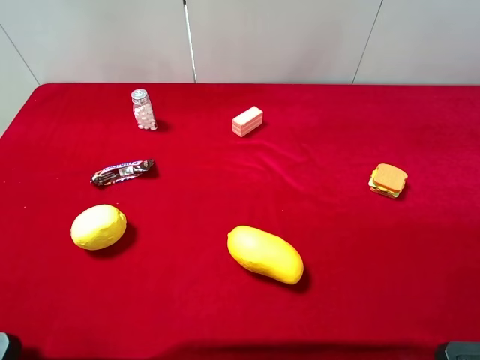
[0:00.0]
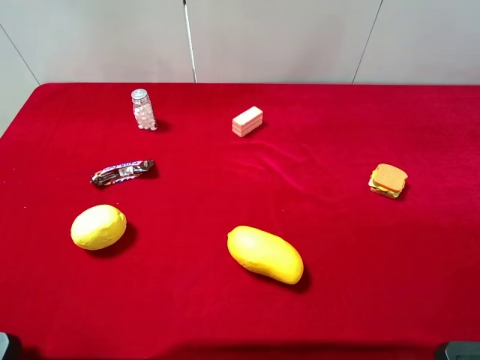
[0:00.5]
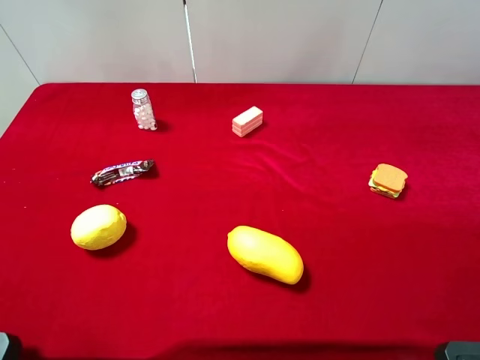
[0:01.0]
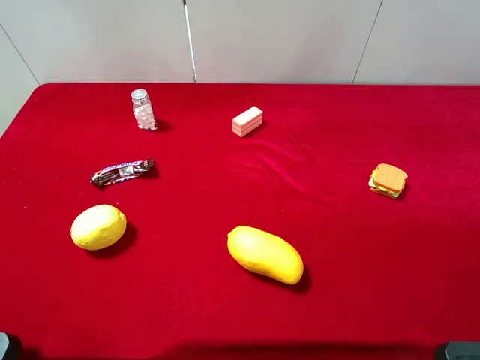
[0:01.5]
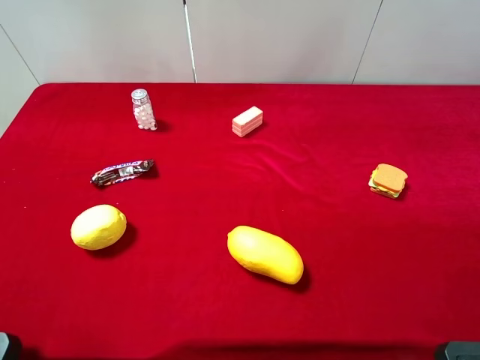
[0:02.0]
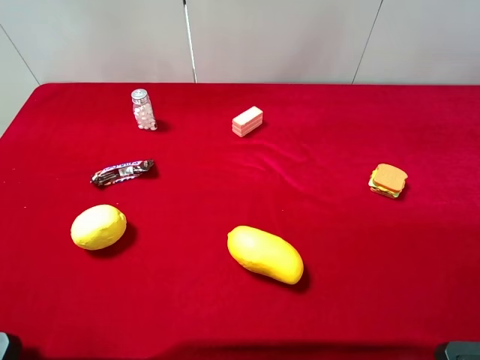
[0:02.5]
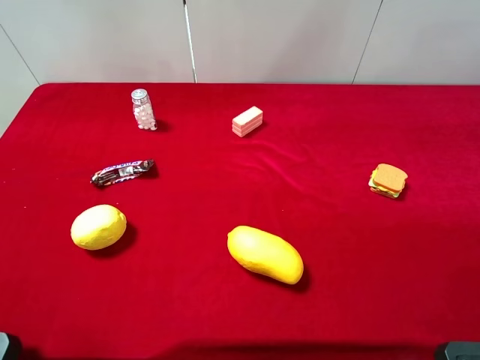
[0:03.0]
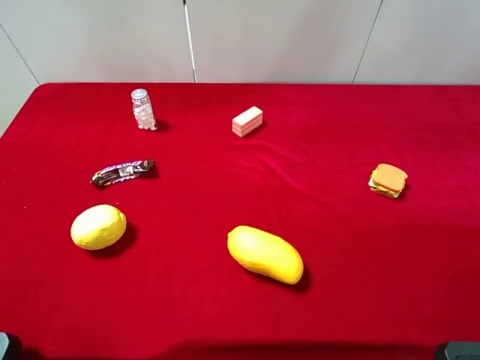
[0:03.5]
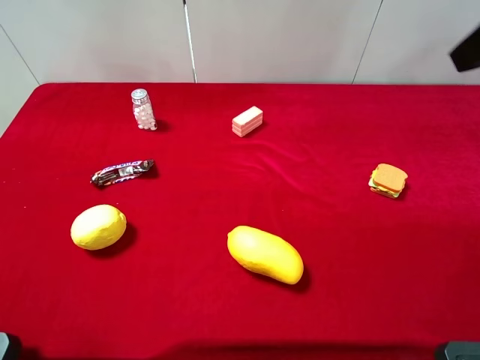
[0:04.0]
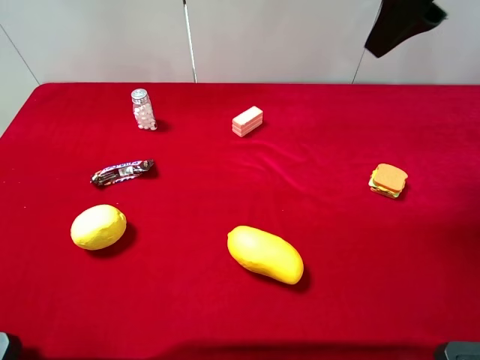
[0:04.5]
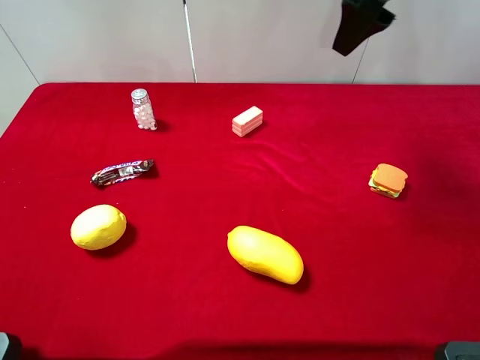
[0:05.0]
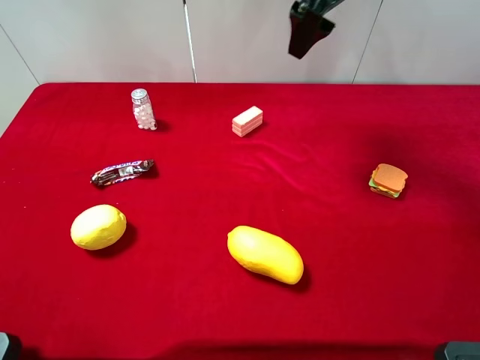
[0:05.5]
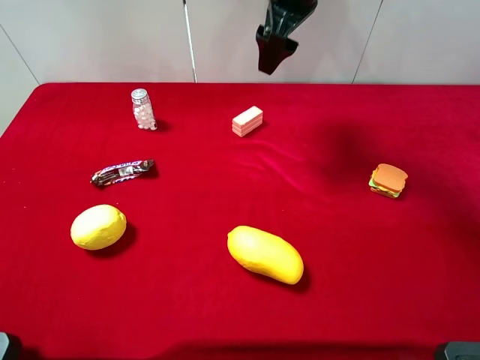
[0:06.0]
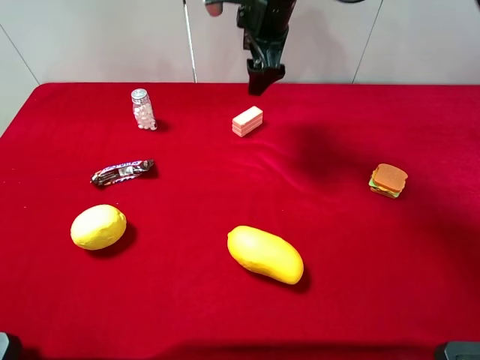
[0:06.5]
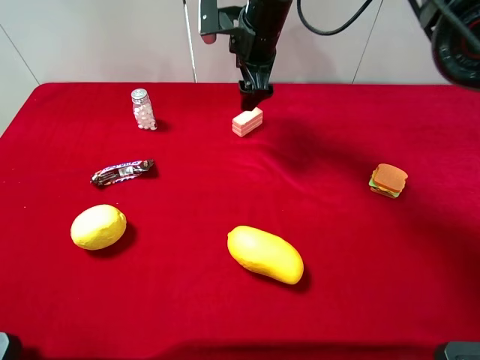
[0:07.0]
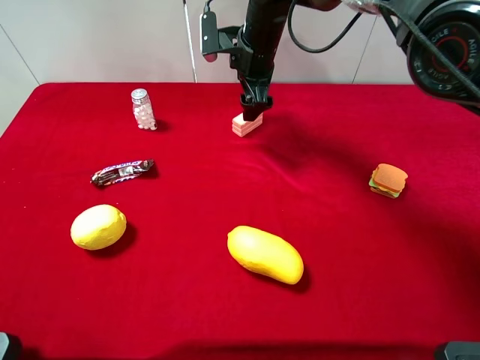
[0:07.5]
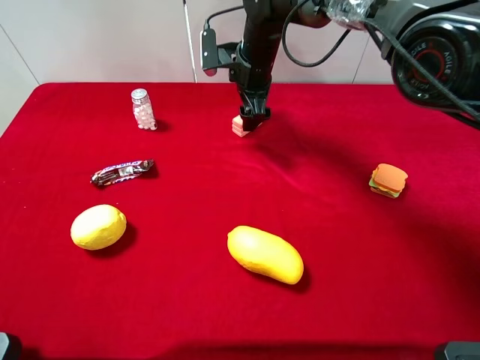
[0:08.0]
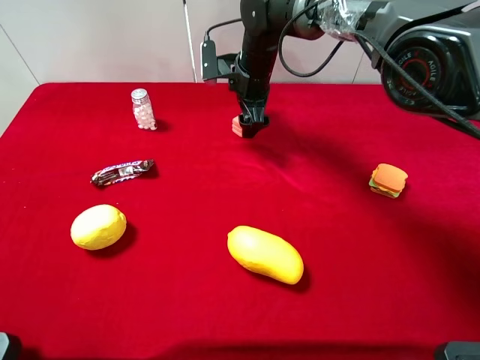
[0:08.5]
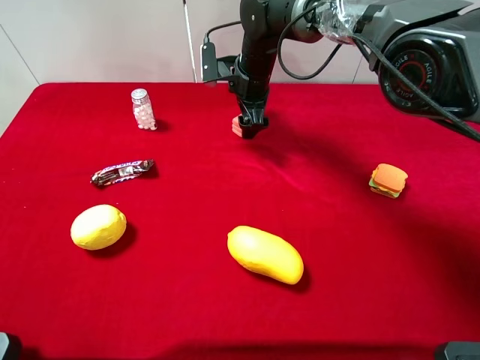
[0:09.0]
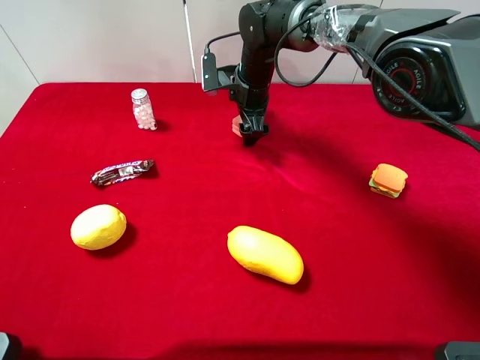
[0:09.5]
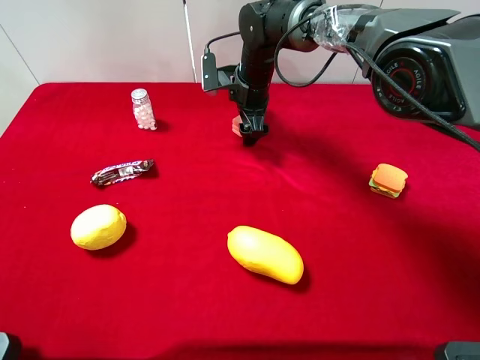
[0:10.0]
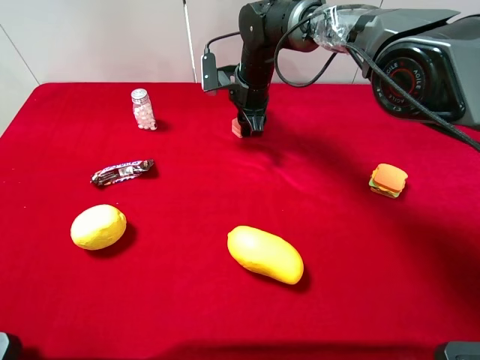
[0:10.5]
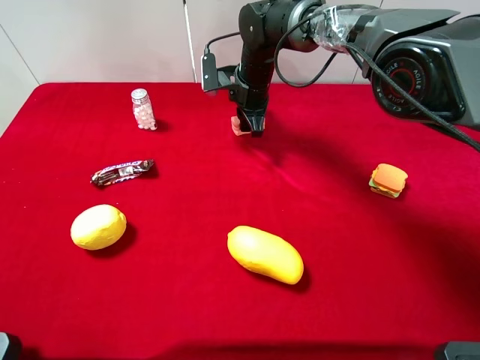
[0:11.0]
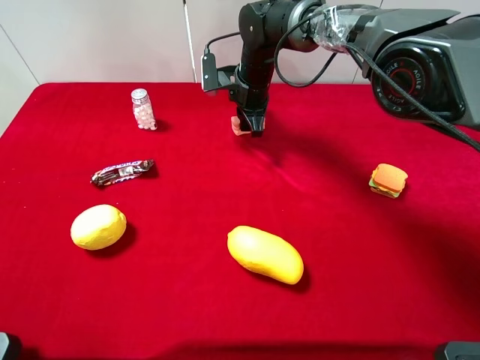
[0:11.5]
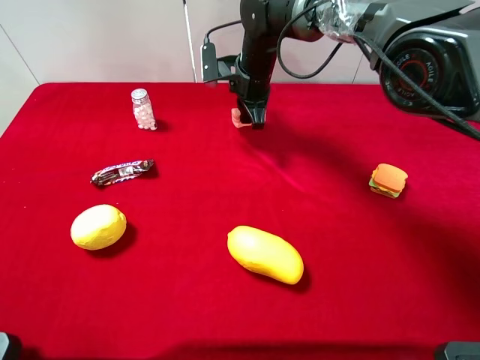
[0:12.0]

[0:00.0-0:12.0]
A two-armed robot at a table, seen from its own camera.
Task of the whole recording: the gripper move the object.
Step, 0.0 to 10.5 s: Grasp the pink cake with the right gripper.
0.0 to 2.0 s: The two grippers keep their place.
4.0 to 6.0 s: The right gripper travels forward, to the left and downward by about 30 cm.
6.0 to 8.0 s: The right gripper moves downward, some 15 cm.
8.0 to 10.0 s: There are only small adjustments of the grippers.
10.0 to 12.0 s: The right gripper closes.

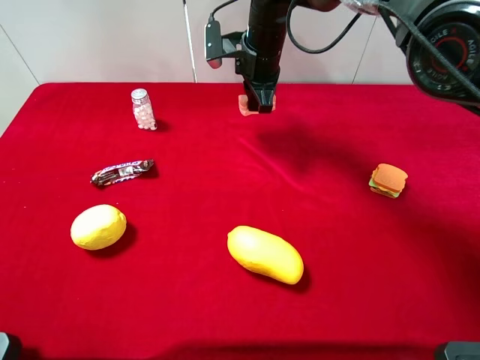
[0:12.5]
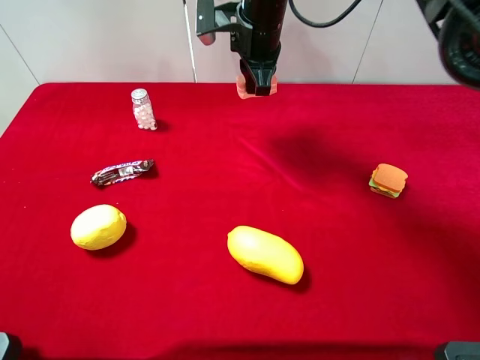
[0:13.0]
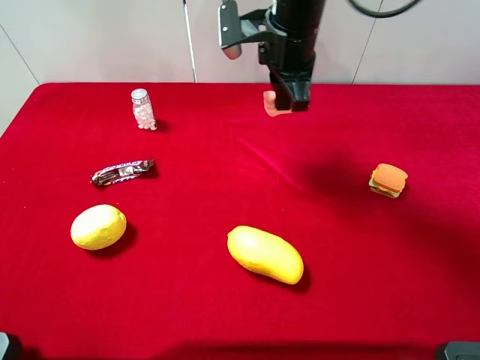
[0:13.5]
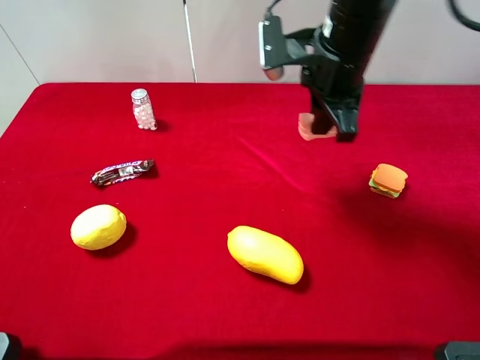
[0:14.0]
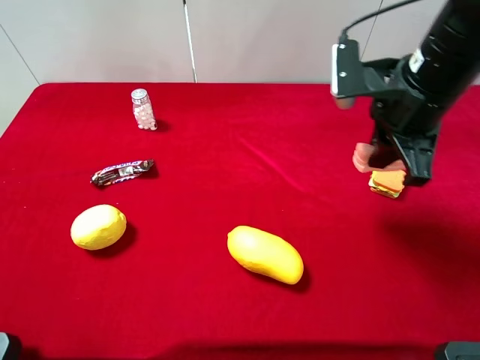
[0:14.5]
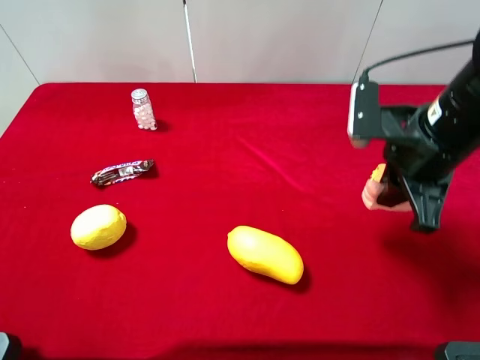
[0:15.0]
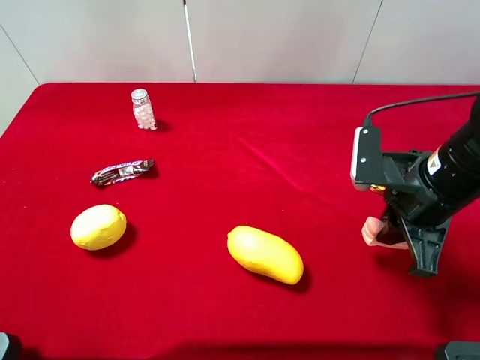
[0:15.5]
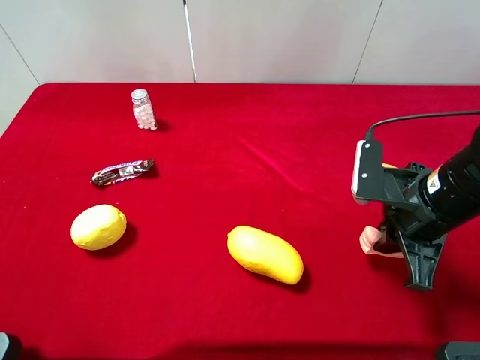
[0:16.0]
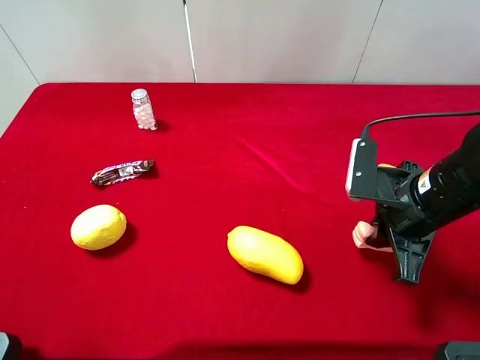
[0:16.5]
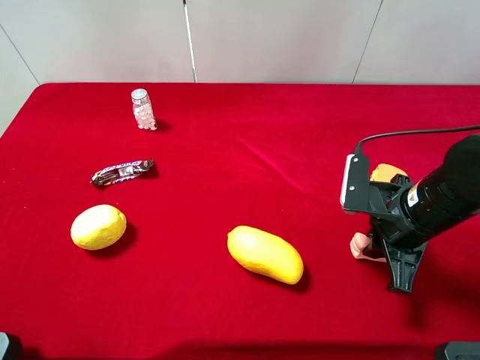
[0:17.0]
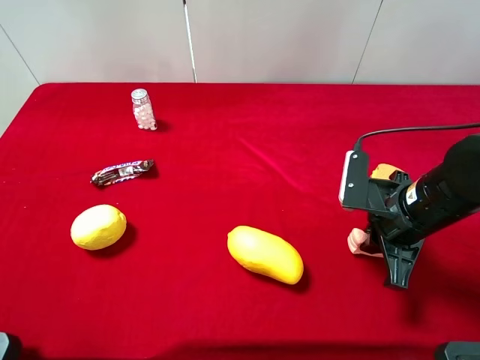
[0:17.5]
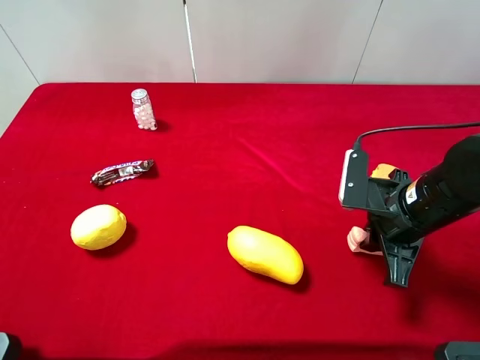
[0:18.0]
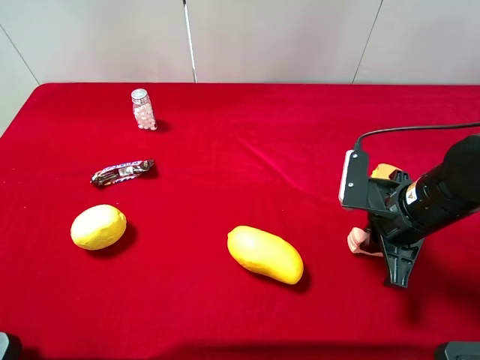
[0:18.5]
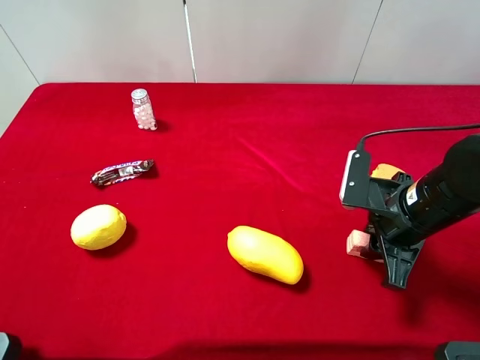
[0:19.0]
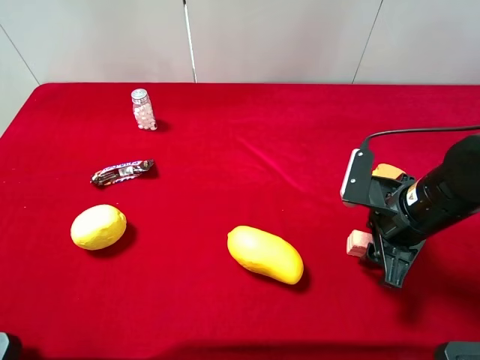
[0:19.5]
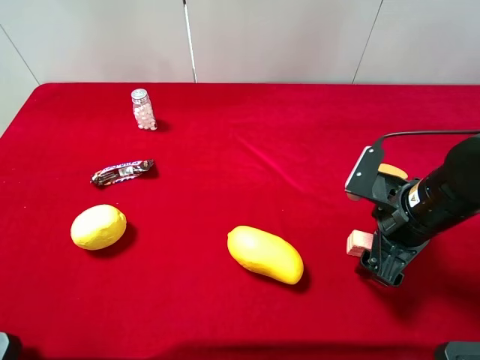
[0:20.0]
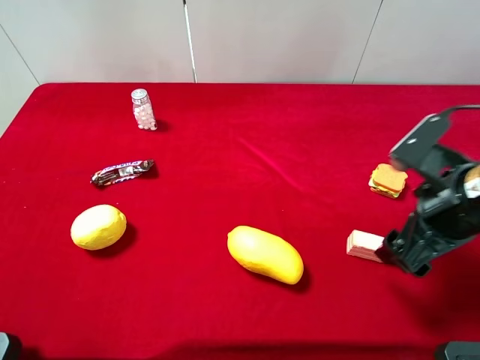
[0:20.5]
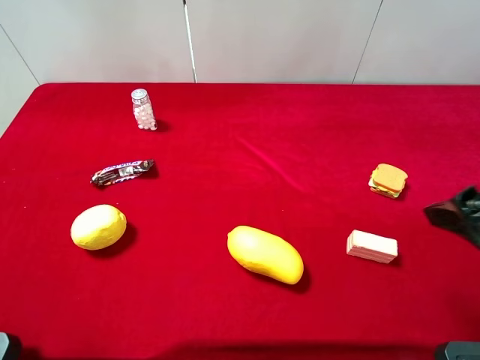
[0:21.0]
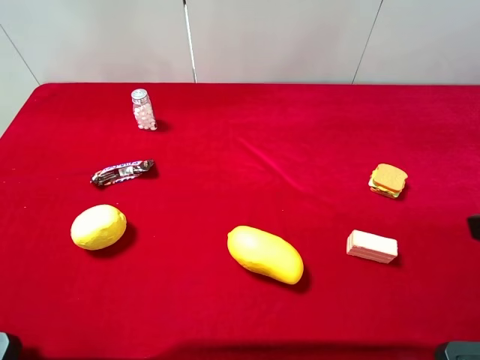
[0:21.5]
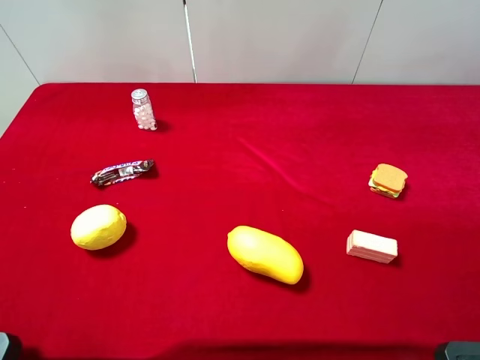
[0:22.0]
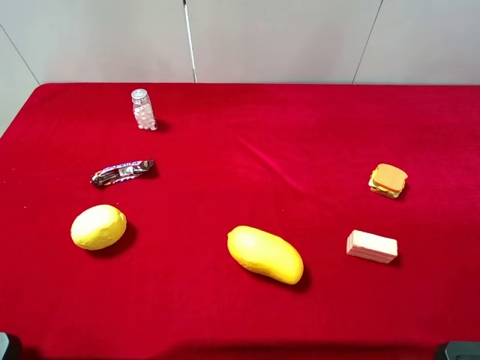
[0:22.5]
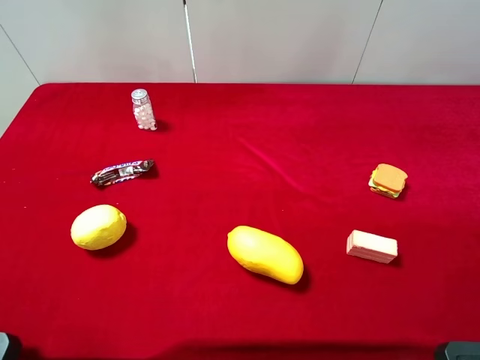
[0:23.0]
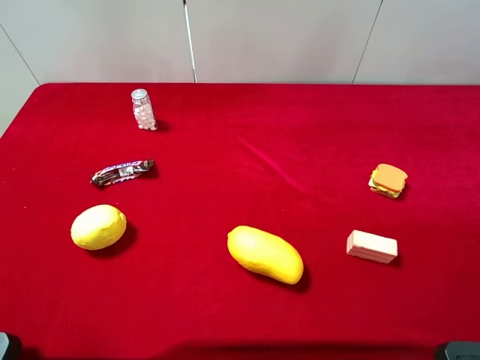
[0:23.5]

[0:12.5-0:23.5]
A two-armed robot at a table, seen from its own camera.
Task of the whole recording: the gripper move the object.
Step, 12.5 to 20.5 s: Place the pink cake on the table with the right gripper.
12.5 to 14.5 s: The right gripper heads backward and to the right, covering about 25 cm.
14.5 to 16.0 s: The right gripper travels downward and backward by approximately 10 cm.
16.0 to 18.0 s: The grippers move only a little.
18.0 to 20.0 s: The right gripper opens up.
20.0 to 21.5 s: The right gripper moves upward and backward, some 20 cm.

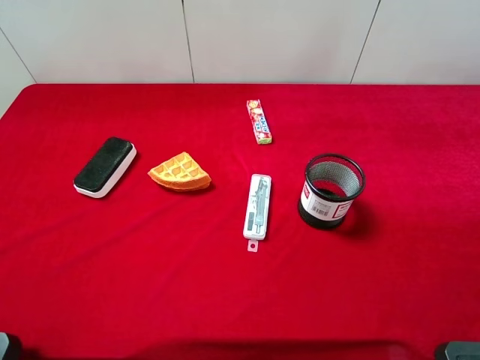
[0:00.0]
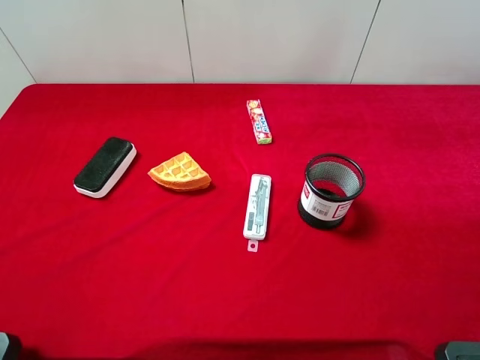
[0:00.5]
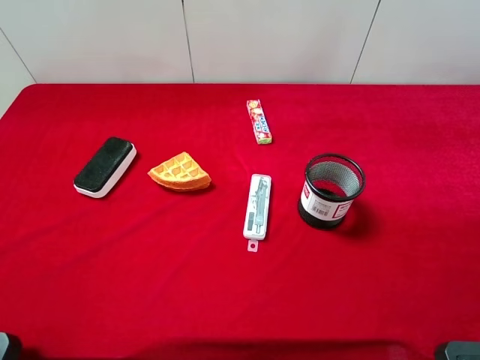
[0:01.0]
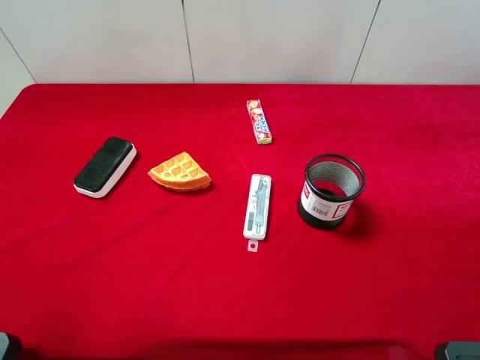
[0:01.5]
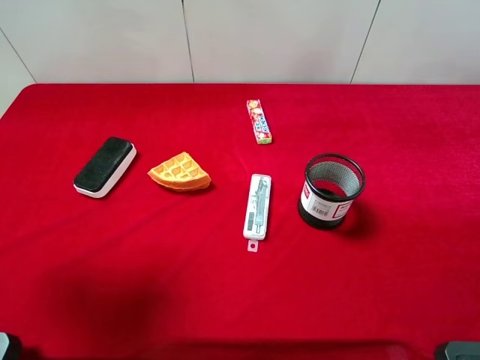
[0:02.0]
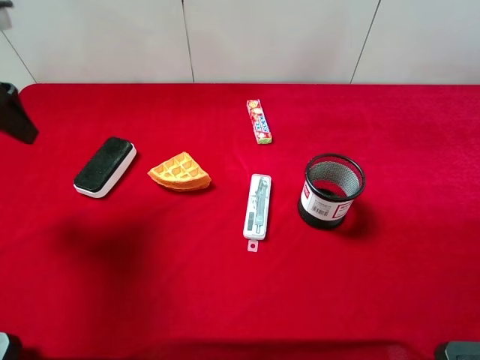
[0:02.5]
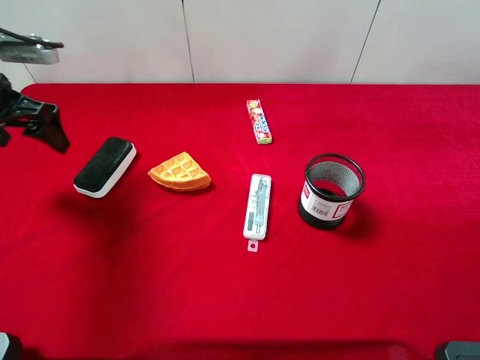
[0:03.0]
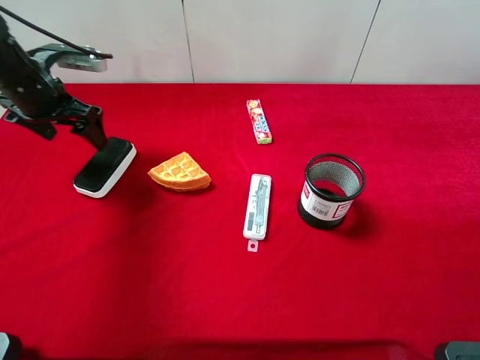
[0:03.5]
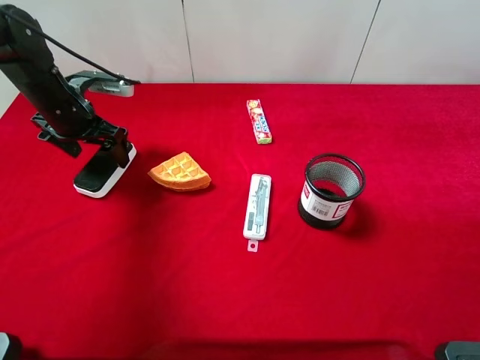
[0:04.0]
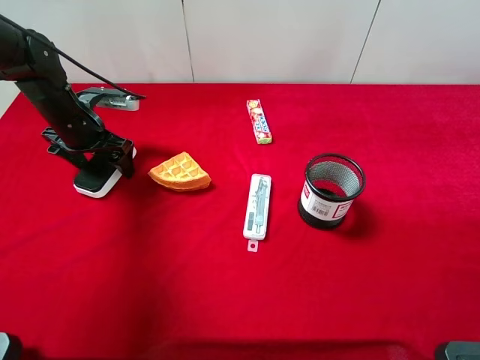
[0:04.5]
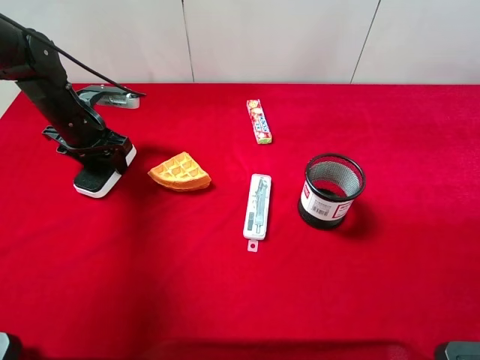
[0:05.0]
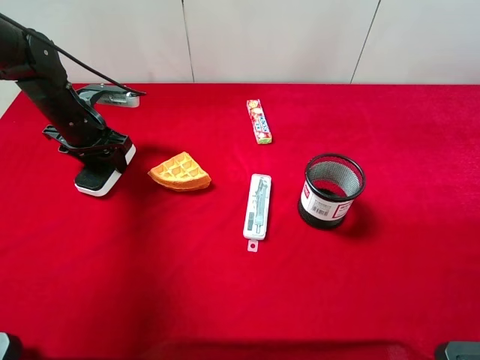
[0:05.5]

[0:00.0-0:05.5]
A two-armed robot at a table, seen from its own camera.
Task of the whole recording: the gripper move the object.
Step, 0.0 to 5.0 s: Grasp the white blackboard erasure with the left gripper.
0.0 to 2.0 s: The left gripper travels forward by roughly 15 cm.
2.0 to 3.5 s: The left gripper is displaced forward and downward by some 25 cm.
3.5 to 5.5 s: The left gripper goes approximately 5 cm downward, and closes its fingers.
